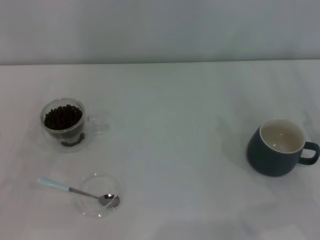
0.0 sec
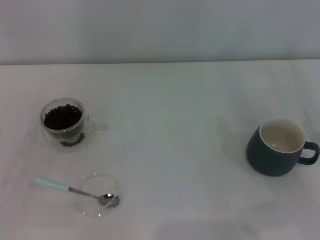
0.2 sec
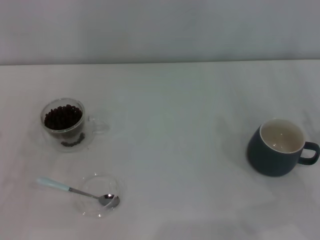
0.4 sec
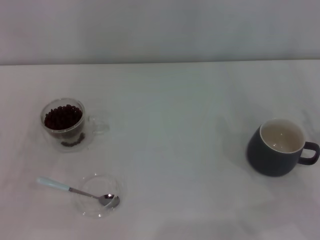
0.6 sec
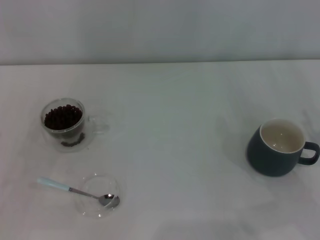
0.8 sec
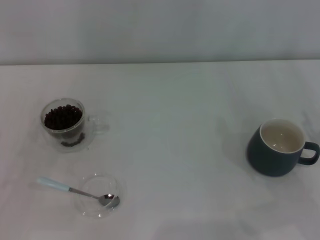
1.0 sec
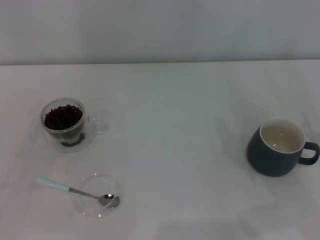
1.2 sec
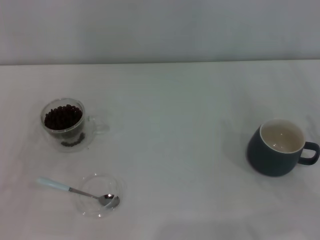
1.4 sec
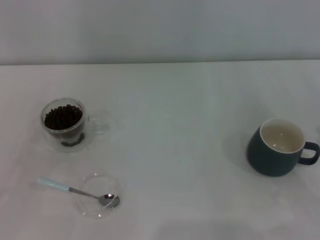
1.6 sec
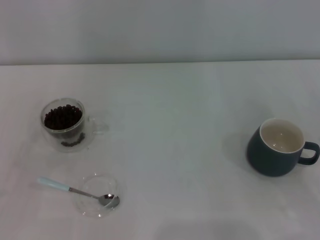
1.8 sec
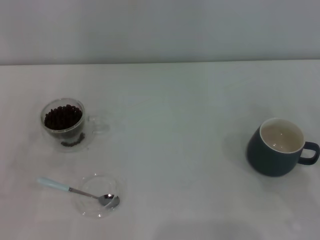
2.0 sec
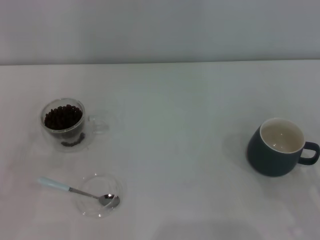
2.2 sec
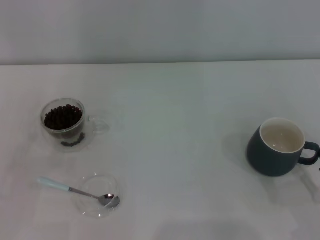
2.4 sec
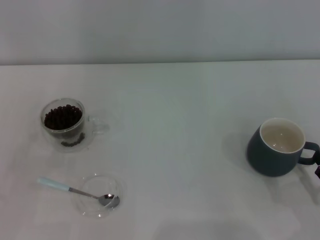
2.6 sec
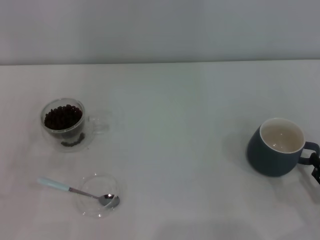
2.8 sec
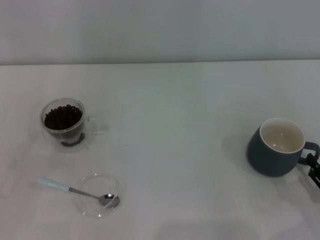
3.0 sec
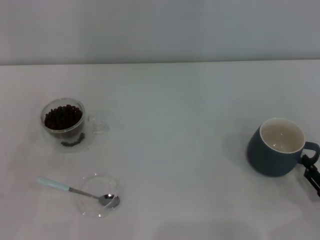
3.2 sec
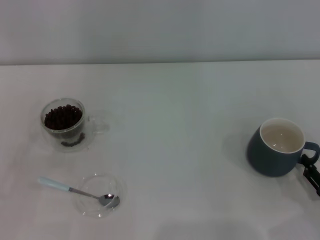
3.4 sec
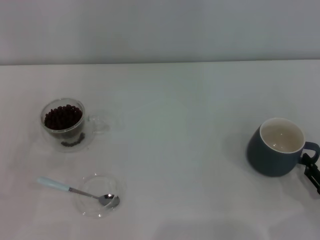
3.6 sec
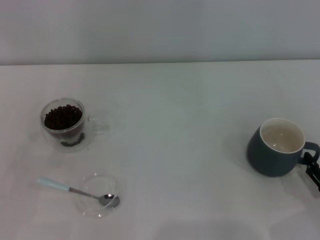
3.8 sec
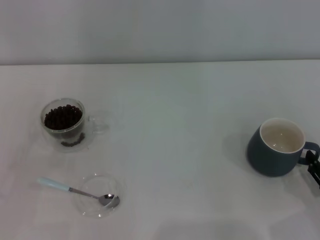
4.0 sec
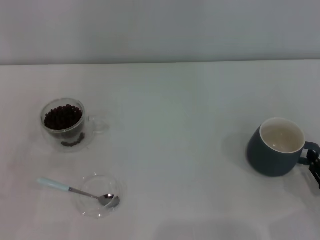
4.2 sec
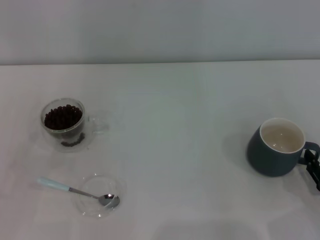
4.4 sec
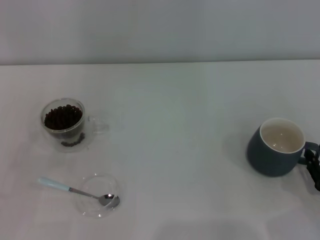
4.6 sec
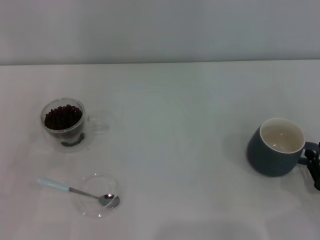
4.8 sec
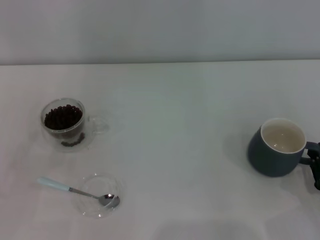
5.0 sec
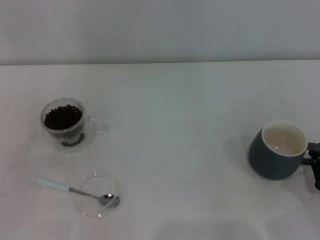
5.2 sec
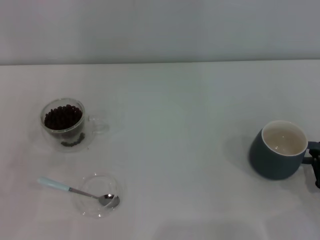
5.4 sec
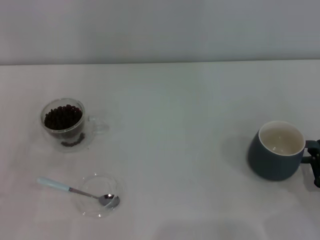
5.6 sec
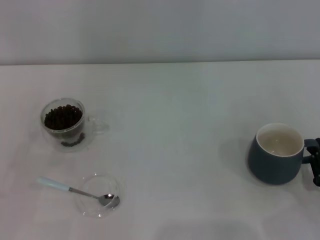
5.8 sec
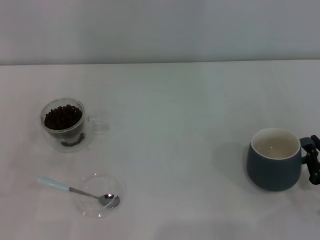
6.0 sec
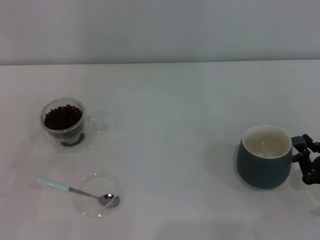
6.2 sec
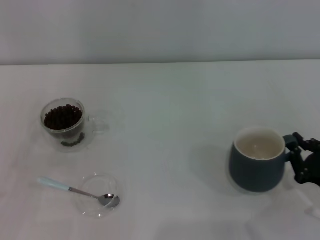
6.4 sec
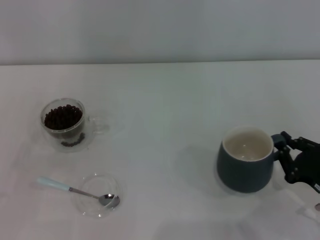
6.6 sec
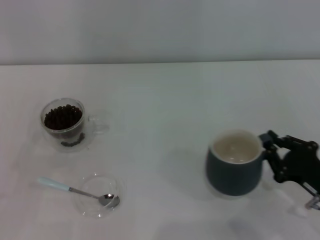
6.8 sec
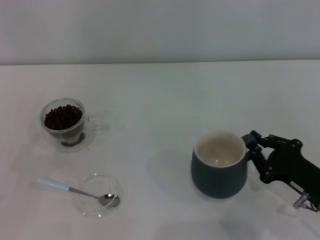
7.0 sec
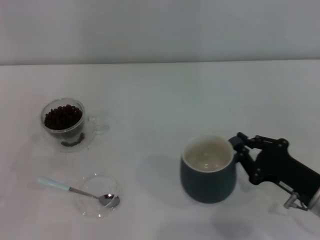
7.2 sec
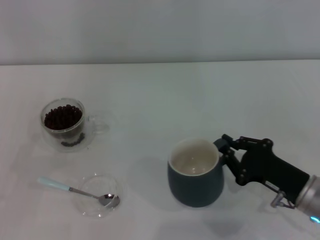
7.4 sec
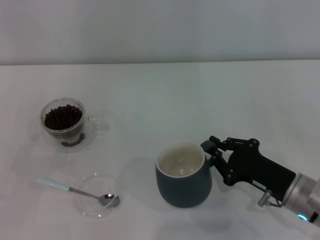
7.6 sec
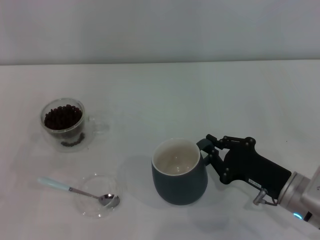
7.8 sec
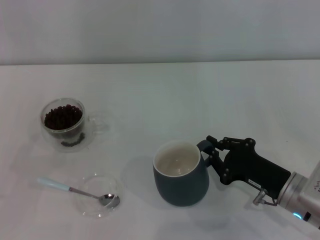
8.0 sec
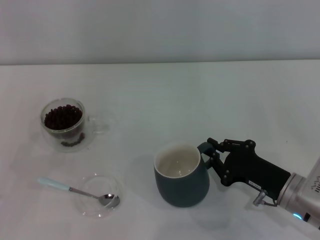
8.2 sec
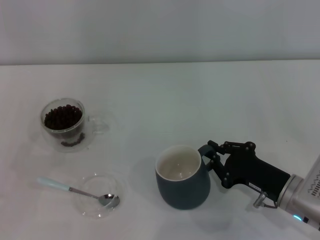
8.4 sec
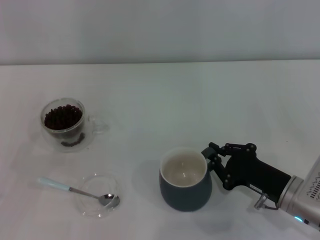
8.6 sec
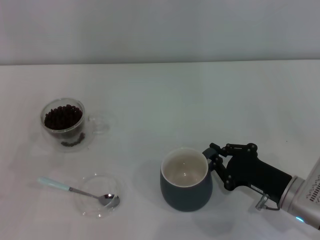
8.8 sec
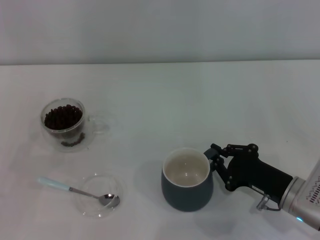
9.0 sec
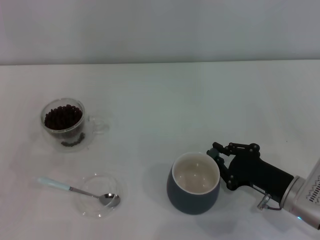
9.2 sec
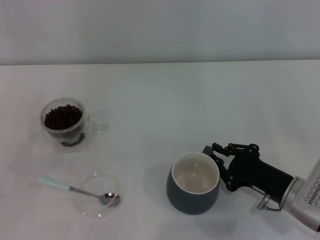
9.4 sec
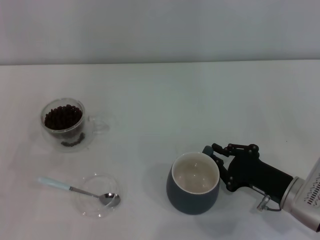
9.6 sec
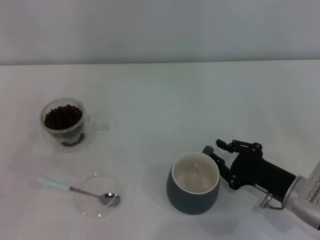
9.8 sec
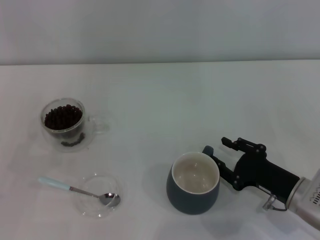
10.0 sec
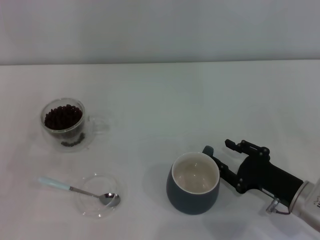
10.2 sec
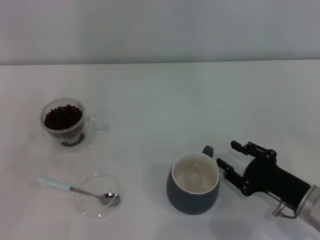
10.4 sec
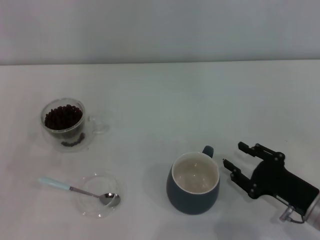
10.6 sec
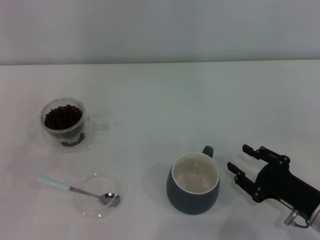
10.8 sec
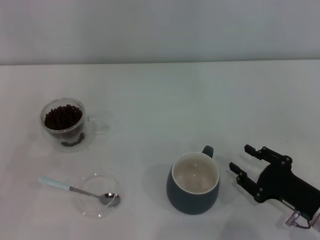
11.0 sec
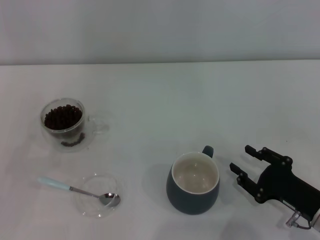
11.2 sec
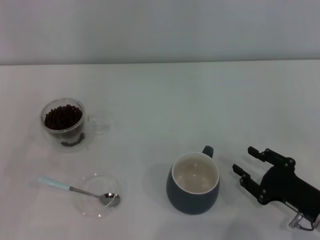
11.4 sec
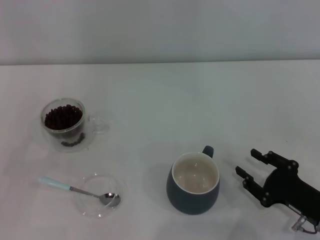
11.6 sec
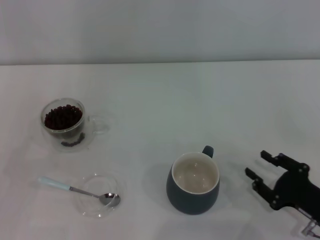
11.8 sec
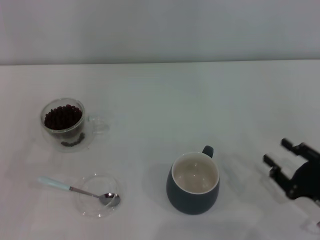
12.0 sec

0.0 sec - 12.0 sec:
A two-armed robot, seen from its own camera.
Task of the whole recording: Use a blue spoon to take out the coffee beans from the glass and pour them into the gray cup.
Step, 0.0 sec - 10.6 sec: Move the cup to the center of view with the left gripper.
1.6 sec - 3.0 sec: The right gripper goes roughly 5 cm downward.
4.4 sec - 6.0 sec: The right gripper closes its fingers.
6.0 sec - 7.6 sec: The right gripper moves to the left and forward, some 10 cm.
7.6 sec - 9.0 sec: The grippers make only small movements.
9.0 sec - 10.4 sec: The right gripper opens.
10.4 sec - 12.0 sec: The right gripper shifts by about 5 cm.

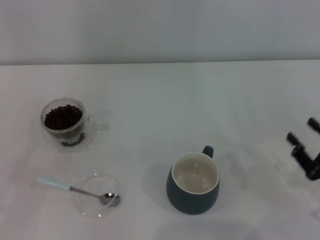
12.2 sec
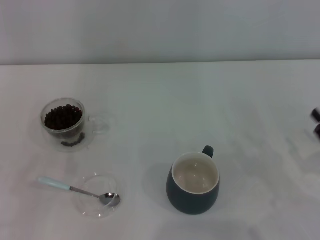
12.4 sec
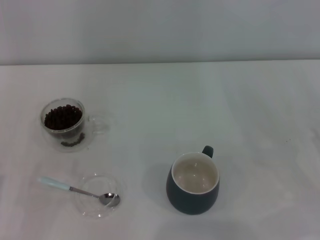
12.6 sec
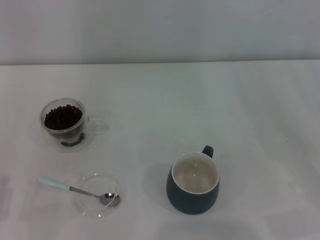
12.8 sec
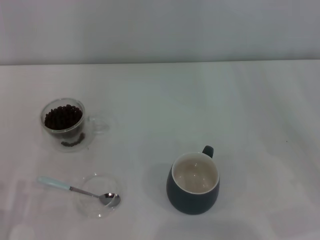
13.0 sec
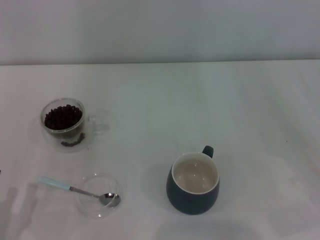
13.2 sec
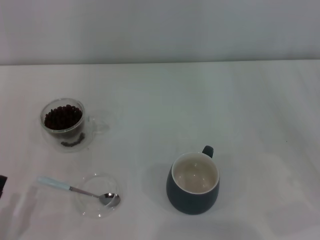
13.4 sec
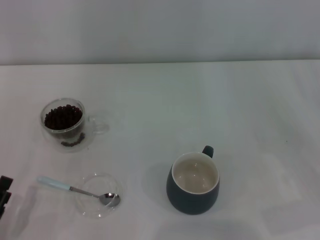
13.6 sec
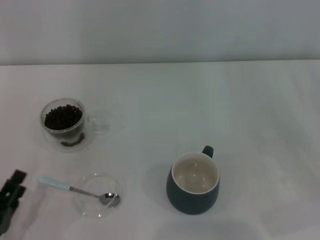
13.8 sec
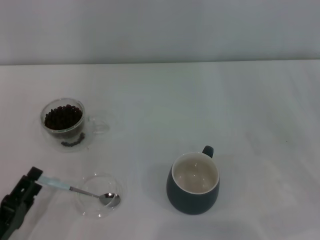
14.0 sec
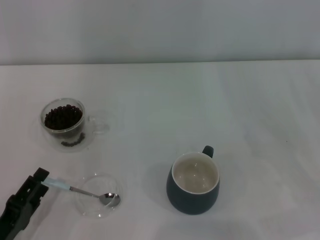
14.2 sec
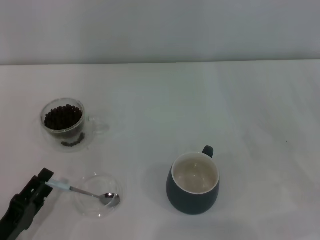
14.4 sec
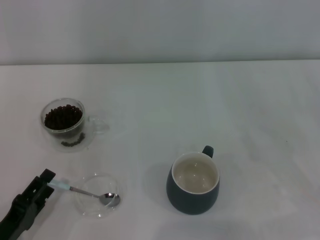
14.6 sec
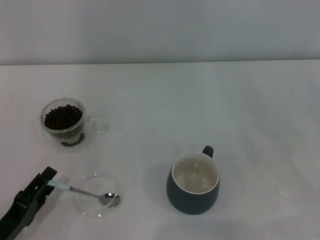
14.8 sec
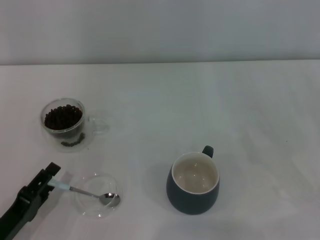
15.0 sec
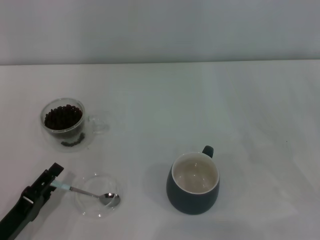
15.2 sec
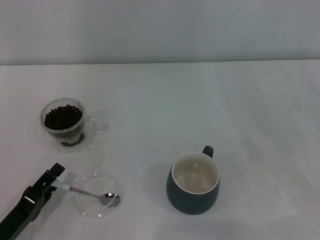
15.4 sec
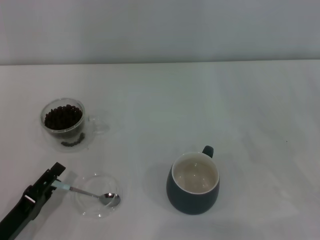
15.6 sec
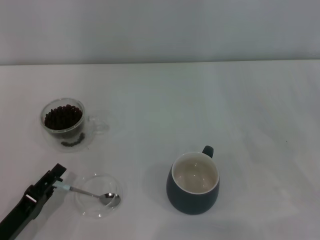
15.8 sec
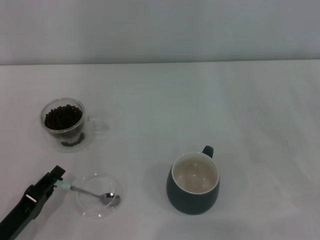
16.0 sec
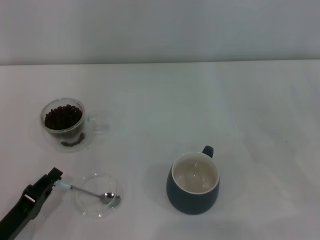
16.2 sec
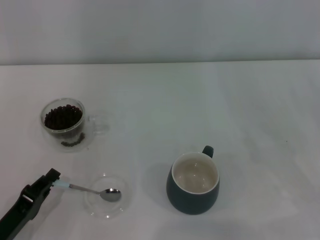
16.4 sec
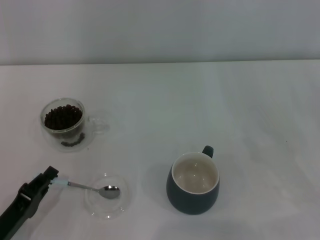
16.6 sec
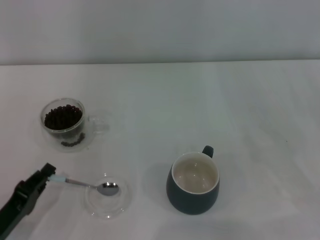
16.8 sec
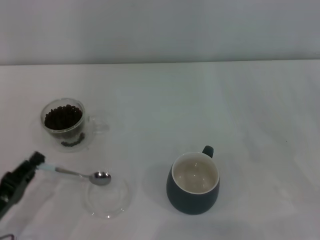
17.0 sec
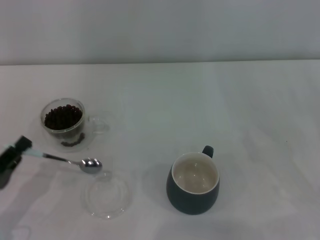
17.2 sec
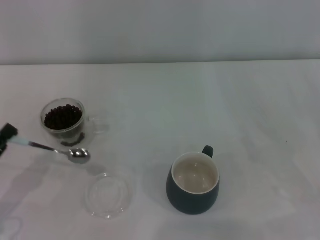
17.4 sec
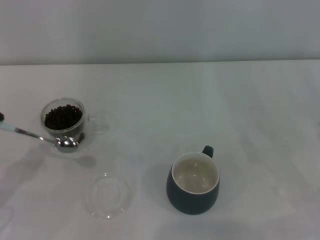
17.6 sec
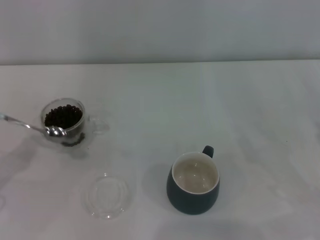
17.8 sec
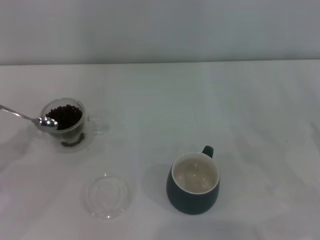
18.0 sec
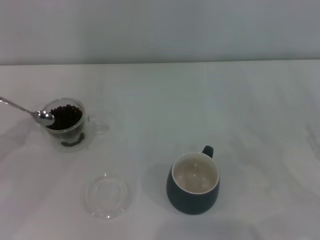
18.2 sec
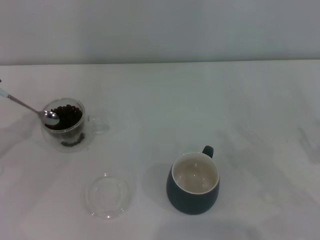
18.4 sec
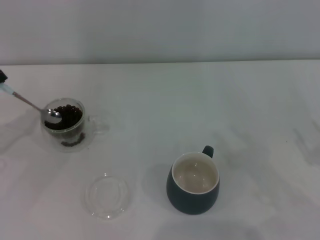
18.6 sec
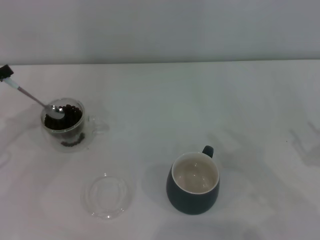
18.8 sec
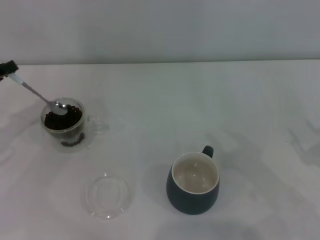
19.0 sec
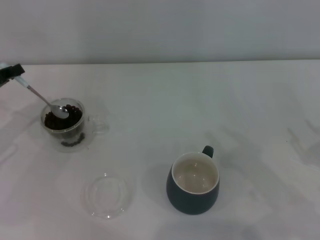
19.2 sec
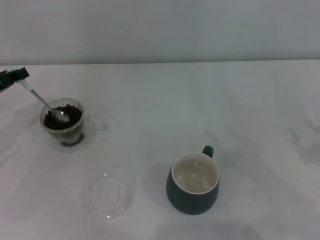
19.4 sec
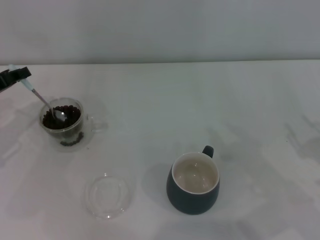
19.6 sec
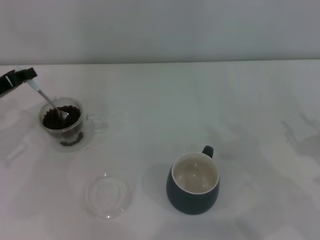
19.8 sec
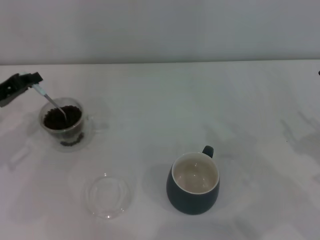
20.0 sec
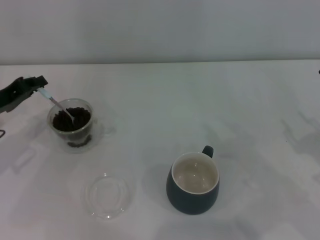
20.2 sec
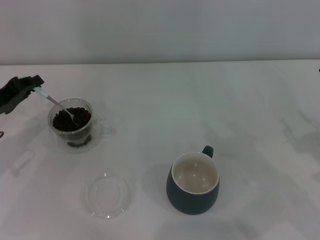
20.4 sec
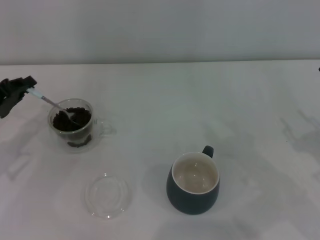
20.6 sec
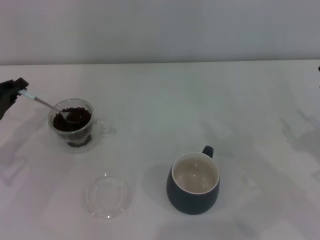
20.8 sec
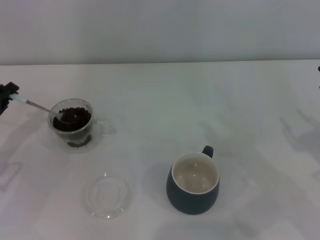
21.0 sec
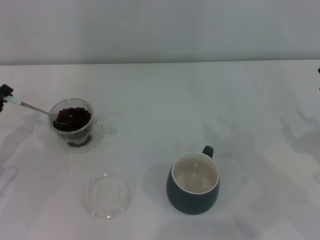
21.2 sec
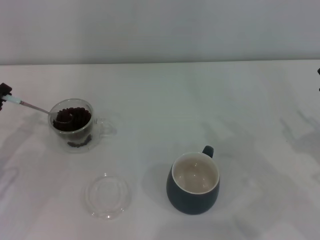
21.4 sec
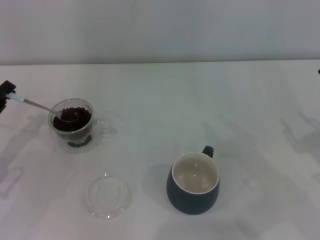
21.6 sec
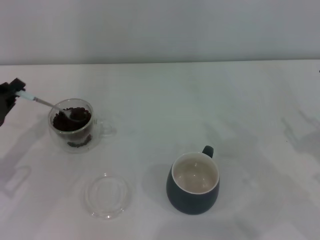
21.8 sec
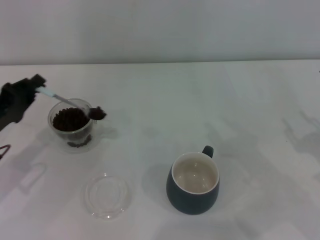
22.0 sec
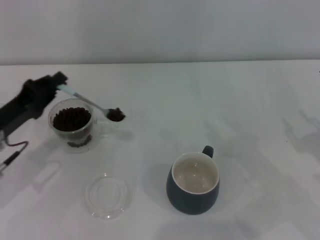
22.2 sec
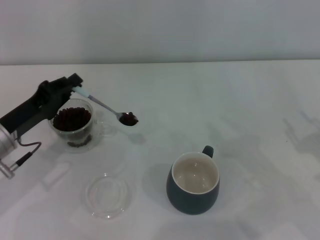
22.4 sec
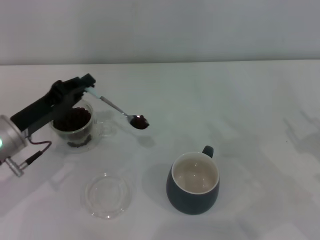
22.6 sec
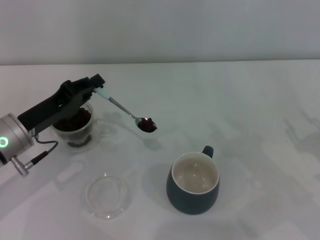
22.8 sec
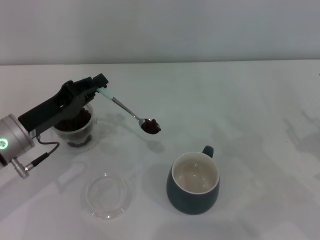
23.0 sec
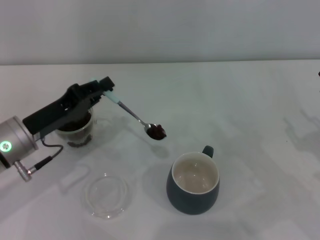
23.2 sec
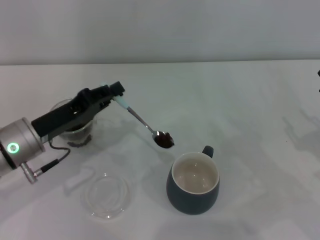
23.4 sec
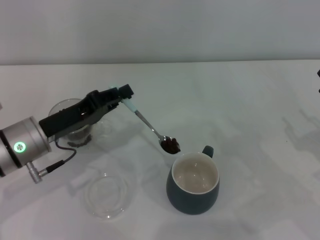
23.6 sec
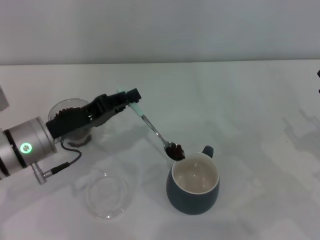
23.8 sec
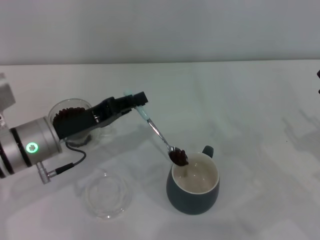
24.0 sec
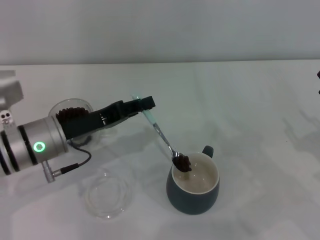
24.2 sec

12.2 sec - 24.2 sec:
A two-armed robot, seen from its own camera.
Task of the whole recording: Use a blue spoon to take out the coffee beans from the glass and pour them into the gray cup.
Step, 12.2 sec - 17.2 sec: Pick up the spoon with the right gripper.
12.2 sec - 13.8 sec: The left gripper moves to the right and downward, approximately 10 cm; the right gripper shifts some 10 cm to the right and upward.
13.8 sec - 15.2 sec: The grippers move only a little.
15.2 sec - 16.6 sec: The left gripper closes its fingers.
16.6 sec - 18.2 sec: The left gripper goes approximately 20 cm upward, to the left and forward.
18.2 sec - 19.8 sec: The left gripper shifts roughly 10 cm forward and to the right.
19.8 sec - 21.2 sec: The left gripper moves backward, approximately 5 cm.
21.2 sec - 22.6 sec: The left gripper shifts about 10 cm to the right.
22.6 sec - 24.2 sec: The left gripper heads to the right, covering about 5 cm.
